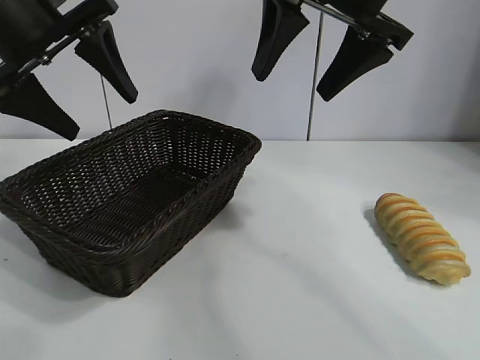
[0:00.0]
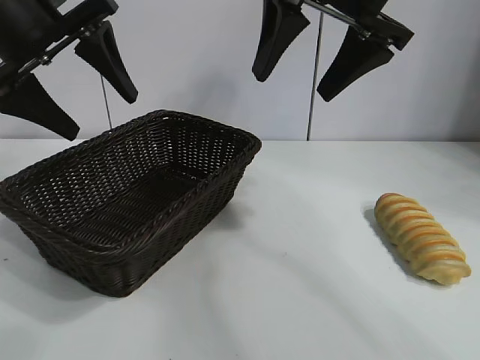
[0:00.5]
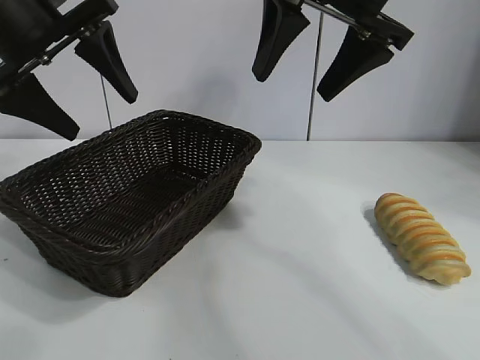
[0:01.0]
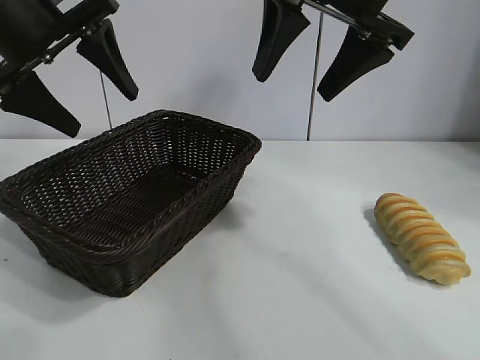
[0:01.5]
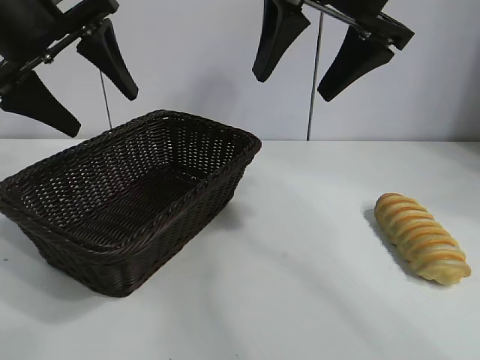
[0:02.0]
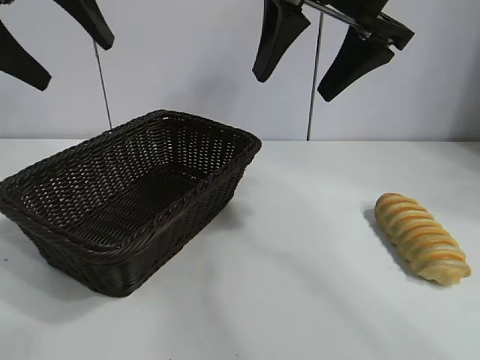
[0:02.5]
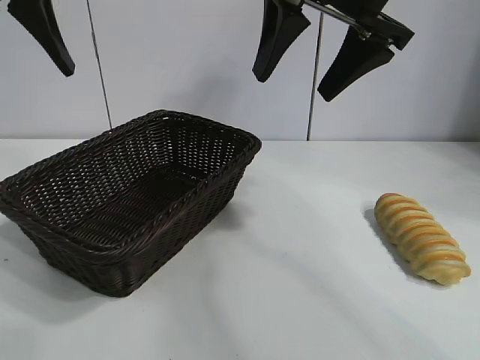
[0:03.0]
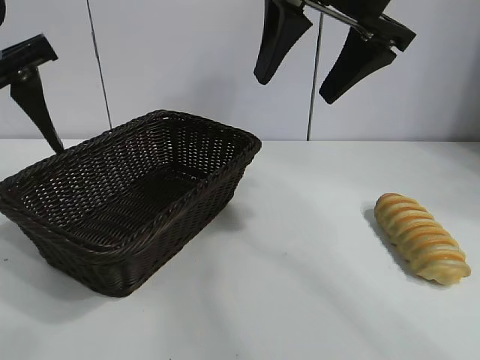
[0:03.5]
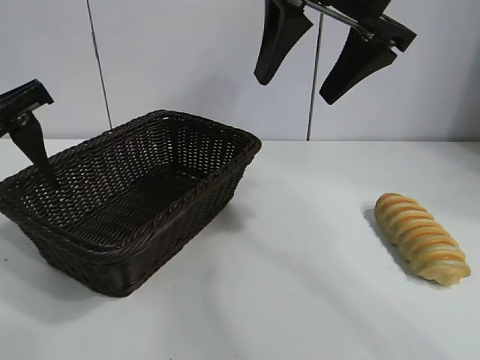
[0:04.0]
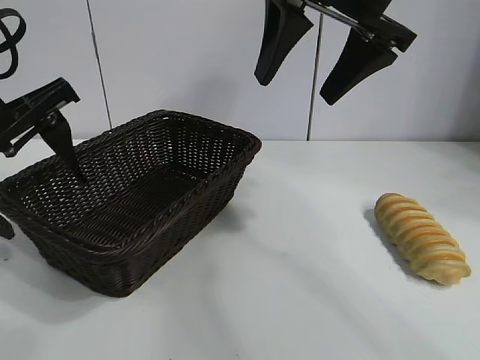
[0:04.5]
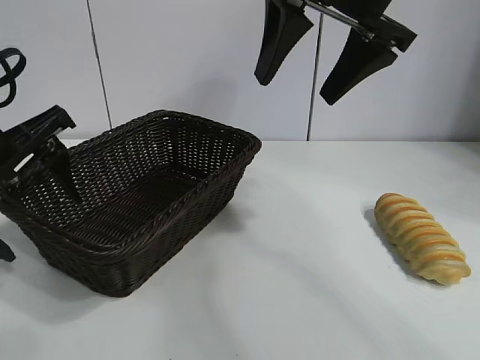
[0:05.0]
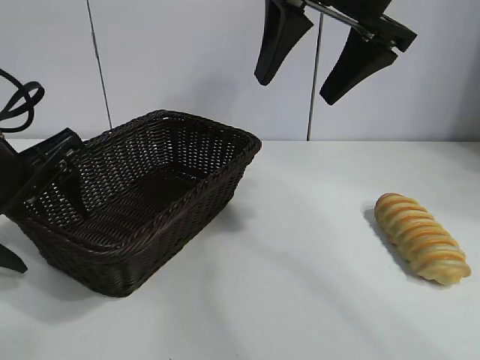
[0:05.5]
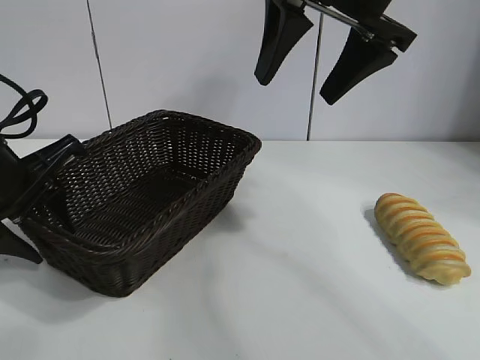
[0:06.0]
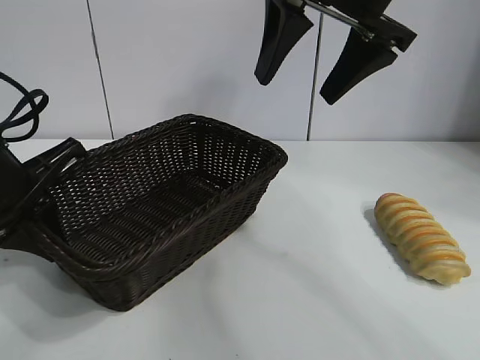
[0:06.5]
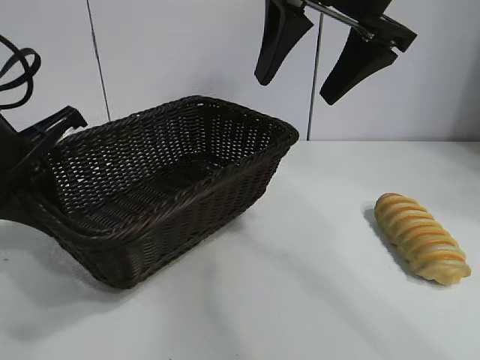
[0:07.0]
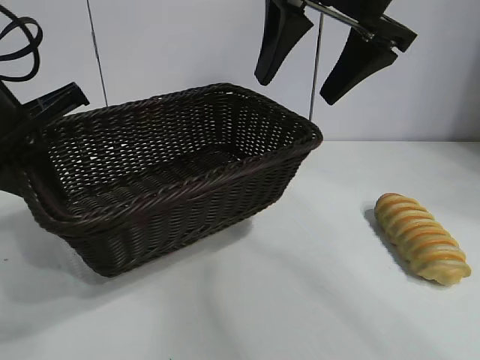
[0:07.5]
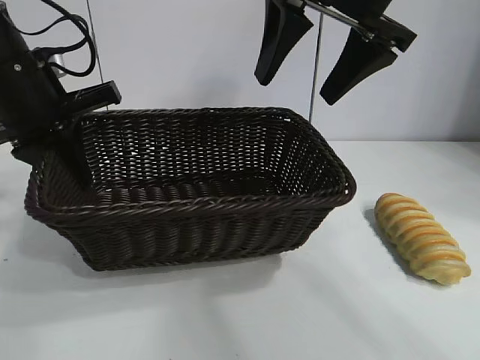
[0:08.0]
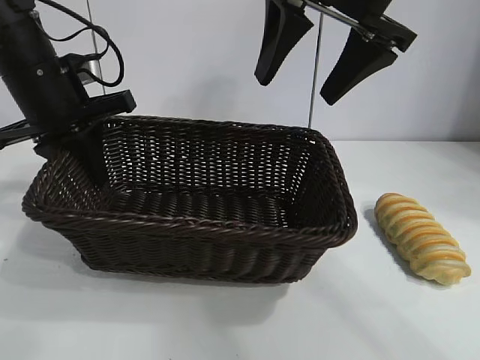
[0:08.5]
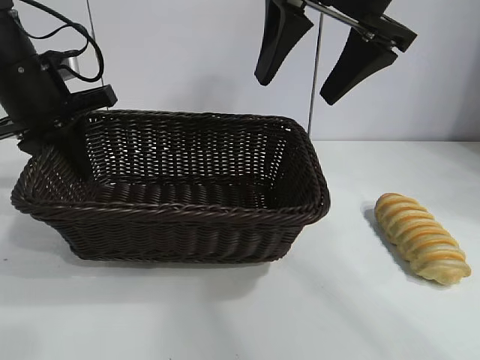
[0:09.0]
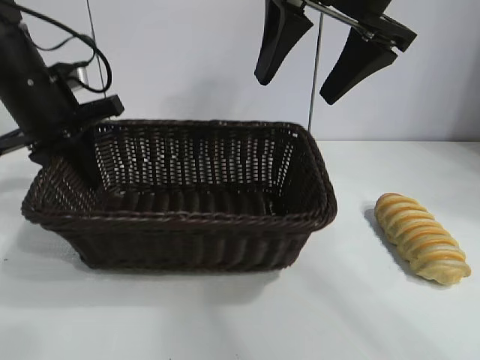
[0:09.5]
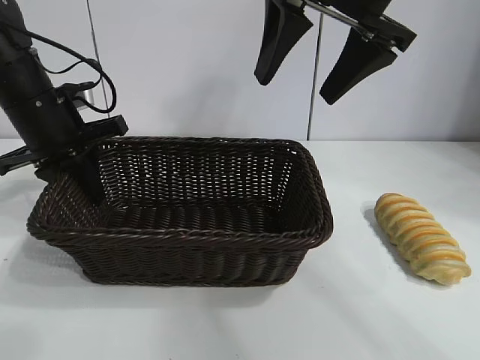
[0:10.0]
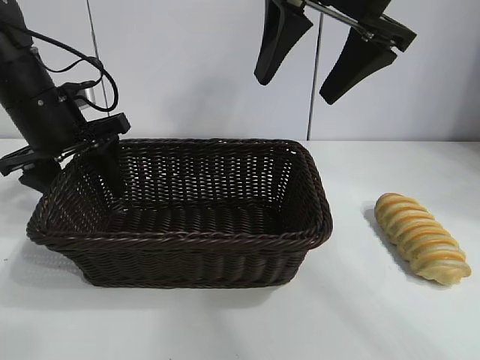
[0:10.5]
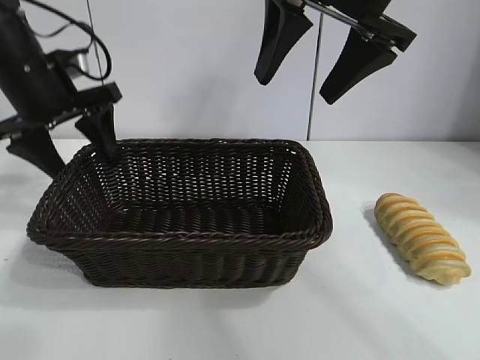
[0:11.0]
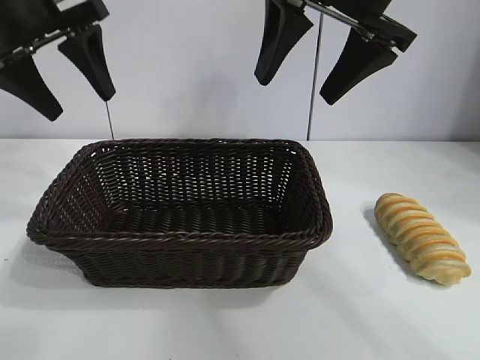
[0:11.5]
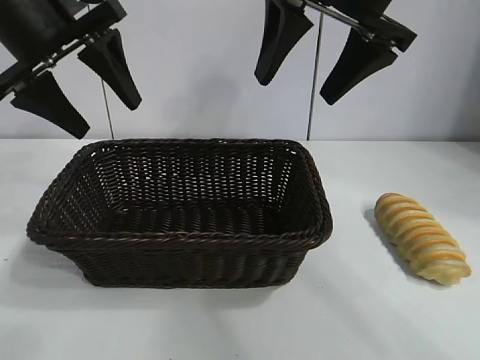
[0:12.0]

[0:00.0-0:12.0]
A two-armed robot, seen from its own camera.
Task of the whole recording: pick up the long bread and put it into the basket.
Step, 0:01.5 to 0:06.5: Grasp the basket with the left gripper.
Step, 0:07.0 to 0:10.5: Place the basket in the center of the table with the left gripper.

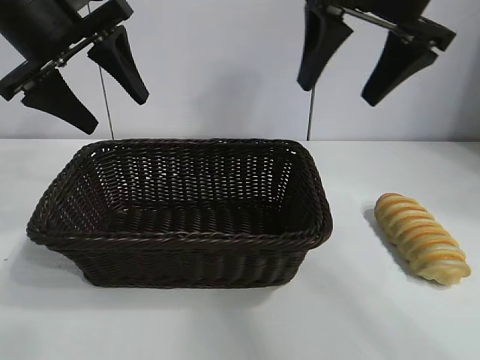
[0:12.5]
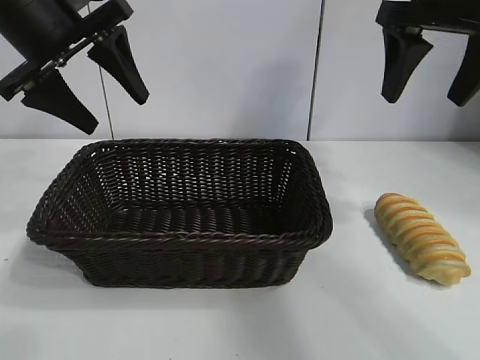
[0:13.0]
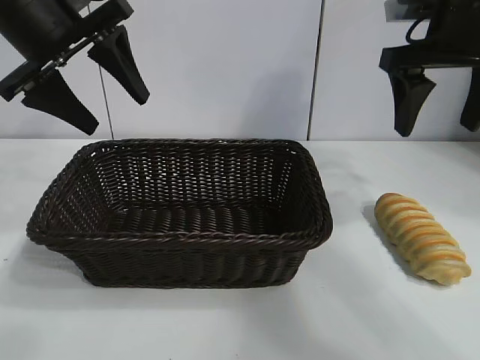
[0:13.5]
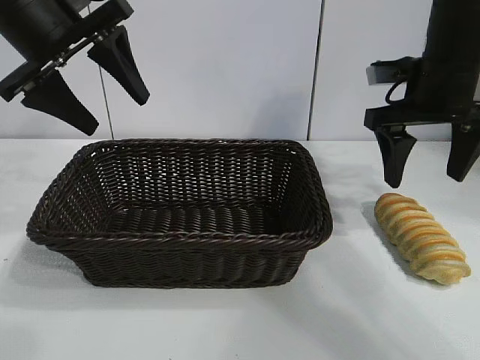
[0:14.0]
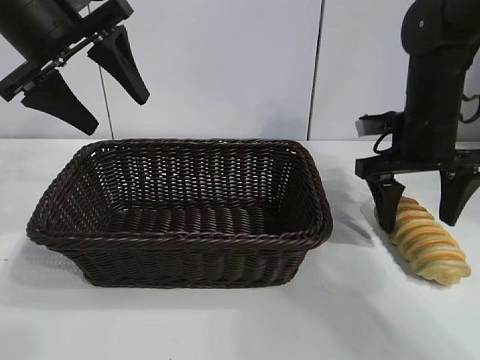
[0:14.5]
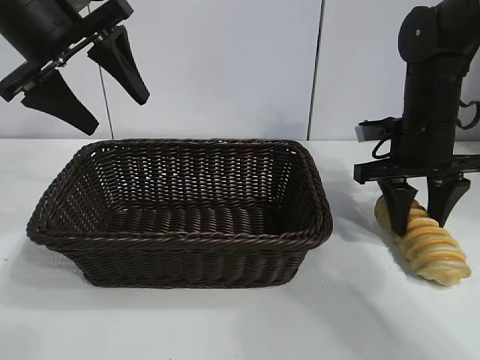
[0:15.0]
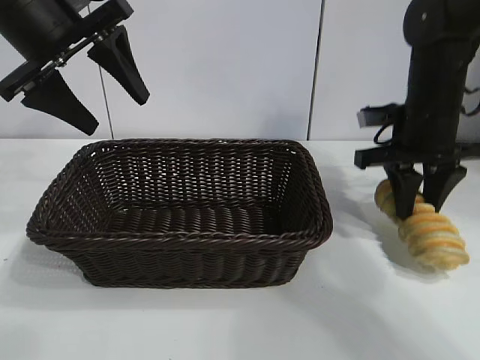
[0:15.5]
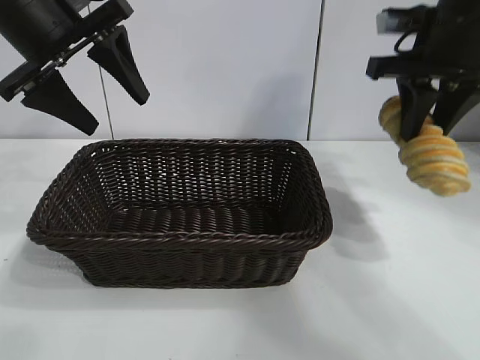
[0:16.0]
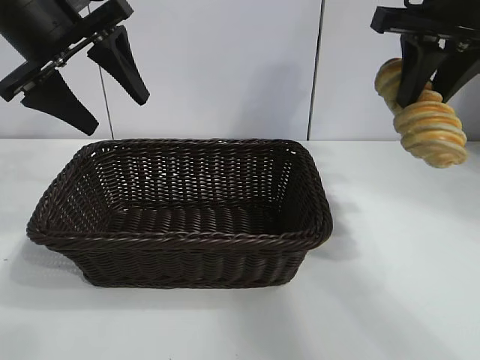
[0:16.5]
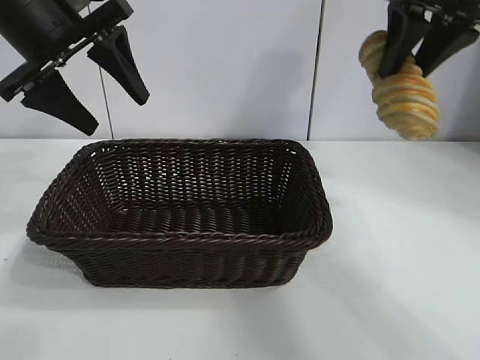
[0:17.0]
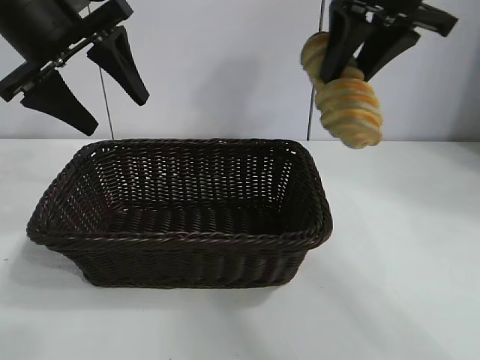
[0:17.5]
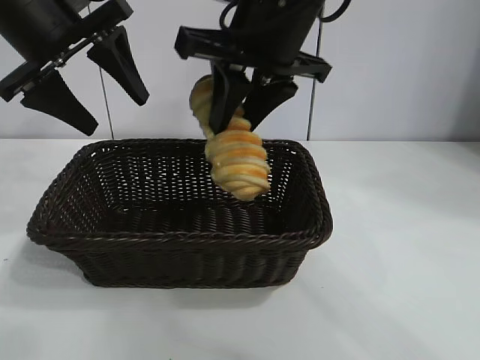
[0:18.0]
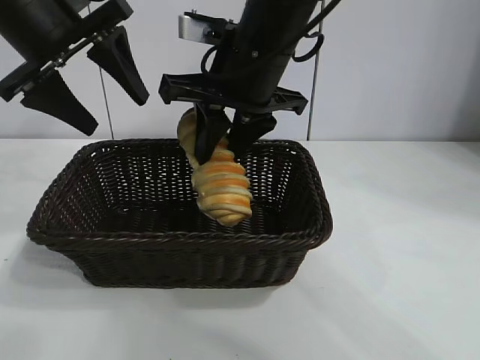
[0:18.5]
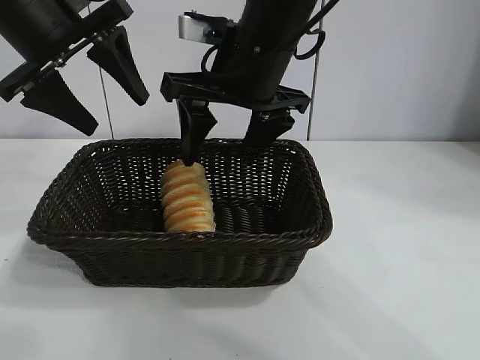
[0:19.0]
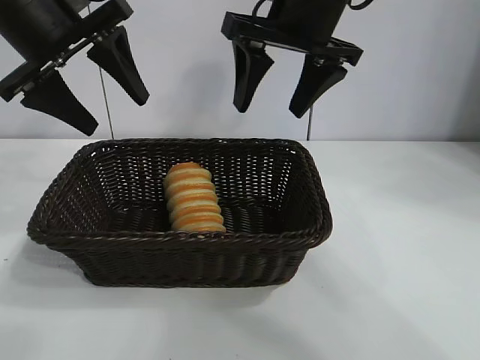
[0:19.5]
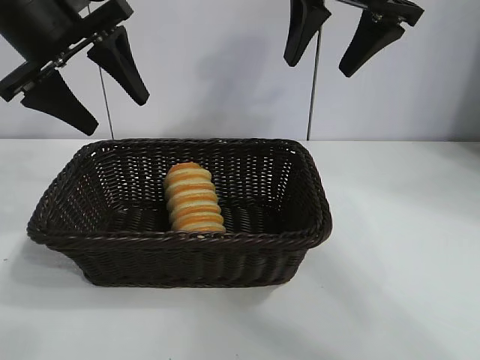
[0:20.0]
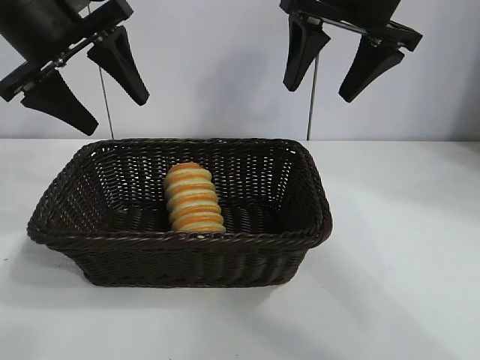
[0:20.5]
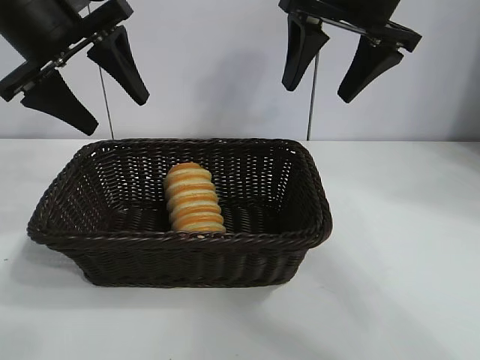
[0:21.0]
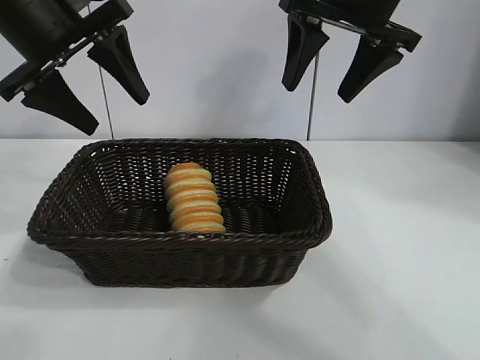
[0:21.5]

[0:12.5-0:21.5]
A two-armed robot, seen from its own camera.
Task of the whole recording: pick up the long bread and put it into the basket.
Step, 0:12.5 to 0:15.0: Grasp the long bread with right gripper.
Step, 0:15.5 to 0:19.0: Place the long bread in the basket with right gripper.

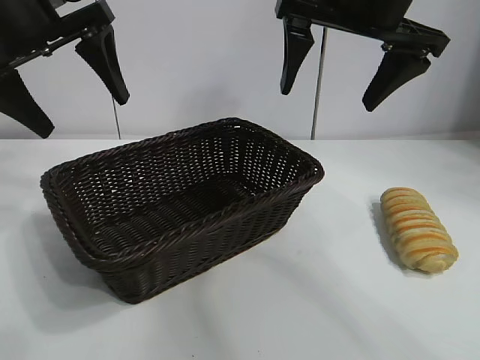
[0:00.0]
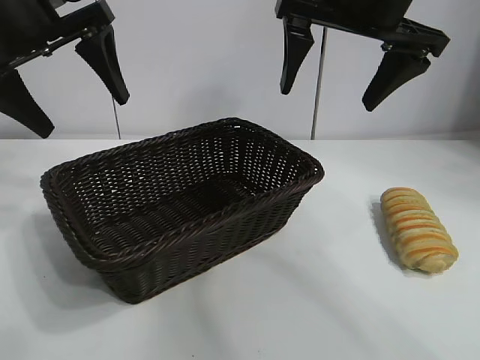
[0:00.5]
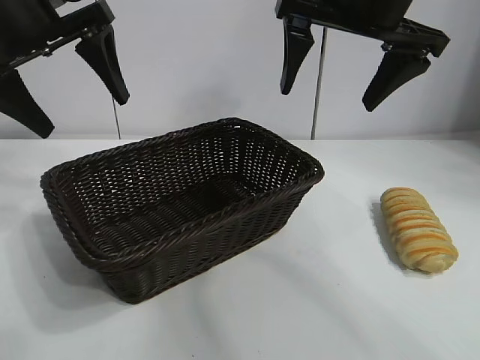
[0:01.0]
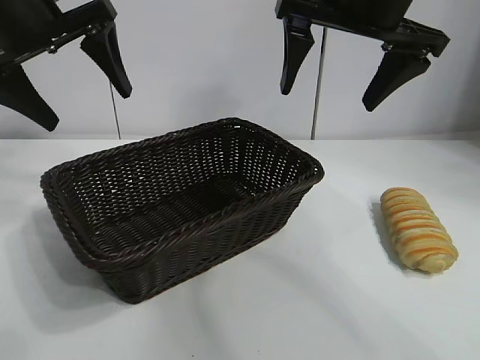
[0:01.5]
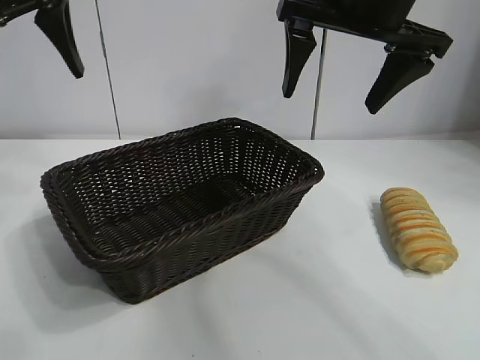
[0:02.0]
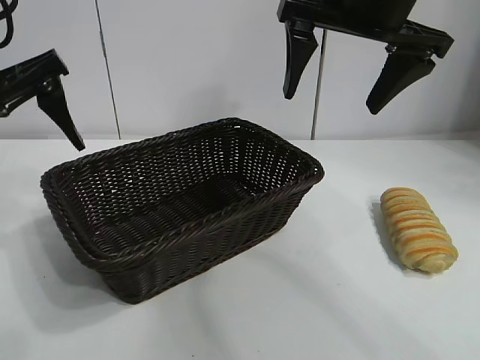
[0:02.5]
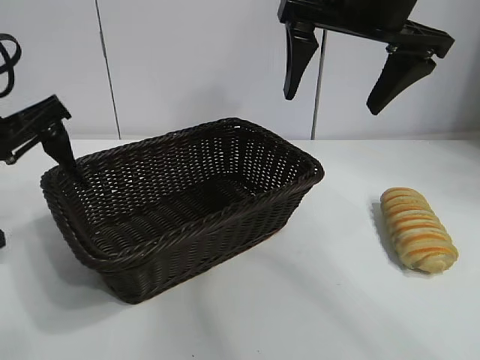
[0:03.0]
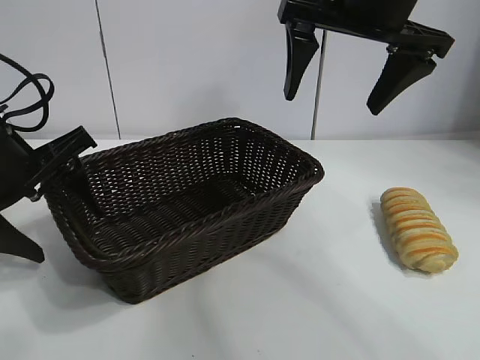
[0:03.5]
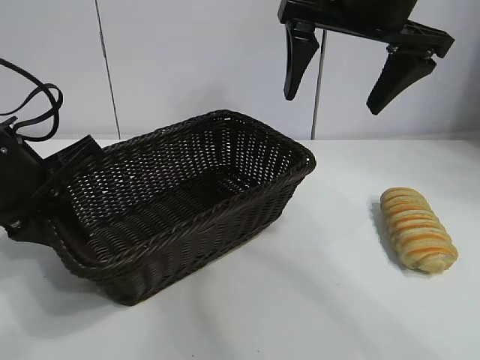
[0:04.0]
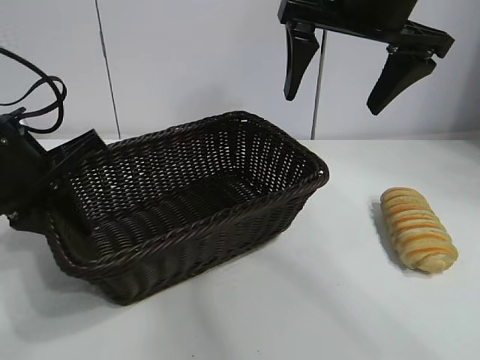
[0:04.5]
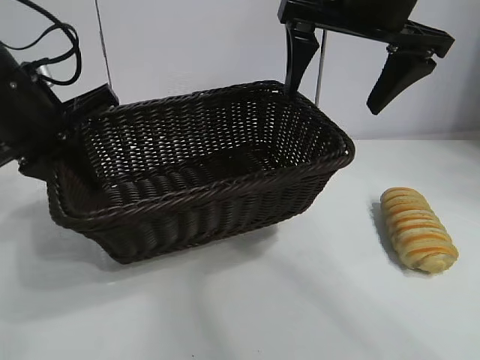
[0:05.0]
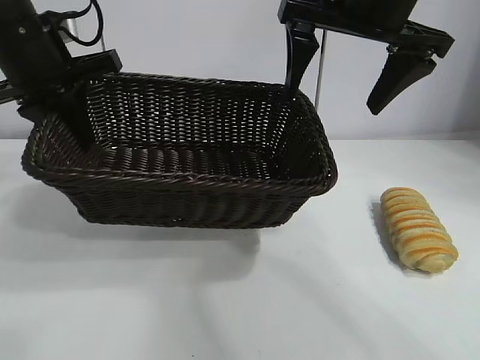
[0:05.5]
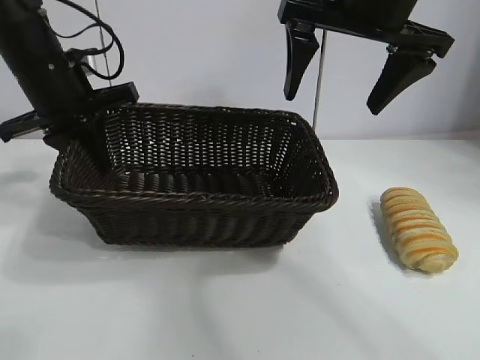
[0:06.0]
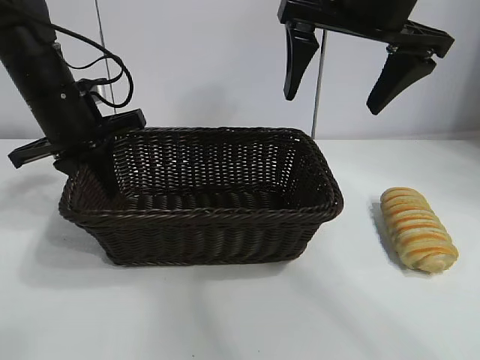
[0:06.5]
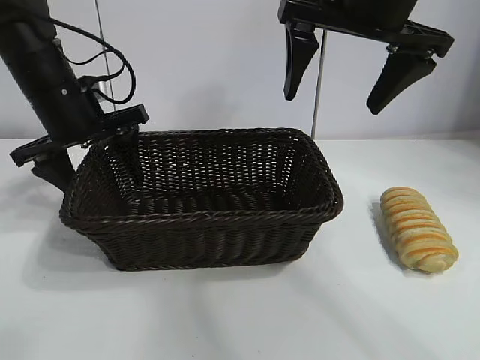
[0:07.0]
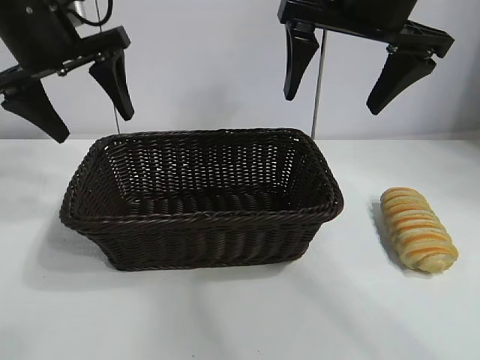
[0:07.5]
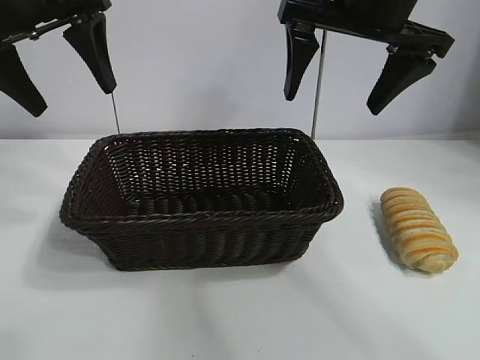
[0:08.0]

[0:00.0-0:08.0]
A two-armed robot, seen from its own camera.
Task of the whole recording: pick up the long bread and put it into the basket.
Step, 0:01.5 to 0:04.0: Grasp the basket with the left gripper.
Step, 0:04.5 to 0:07.0: Place the basket in the center of the table with the left gripper.
